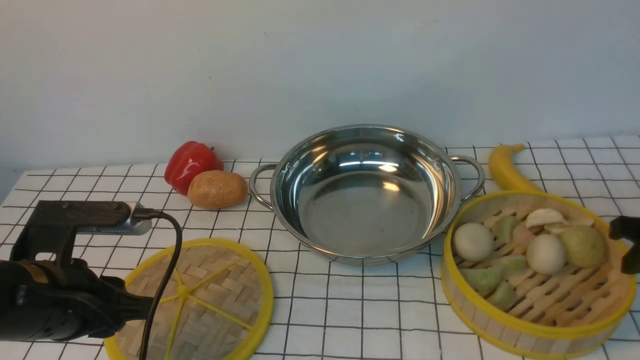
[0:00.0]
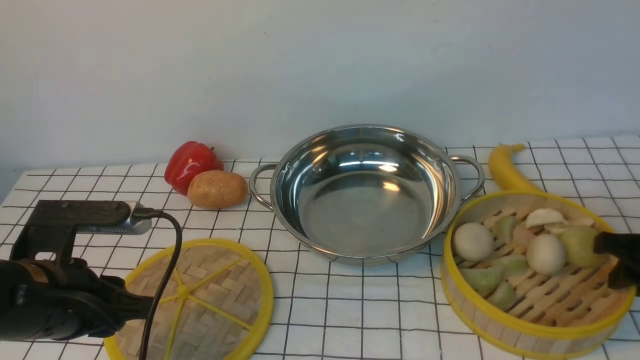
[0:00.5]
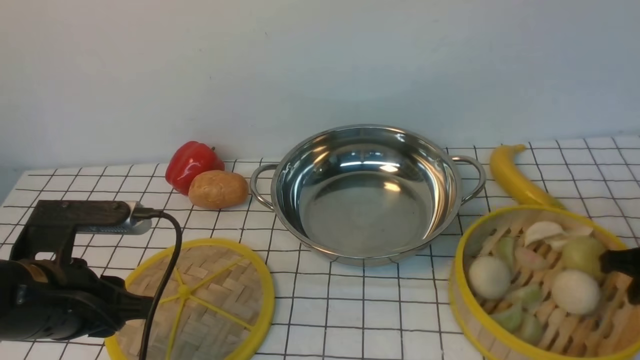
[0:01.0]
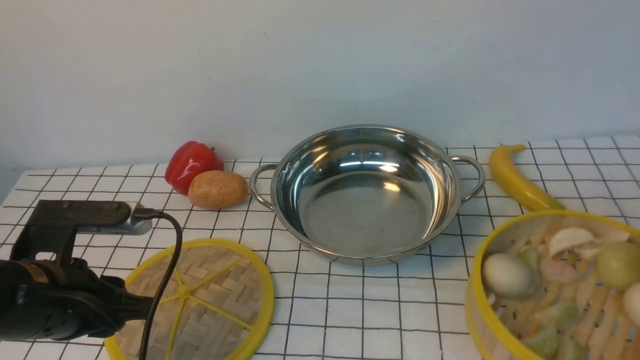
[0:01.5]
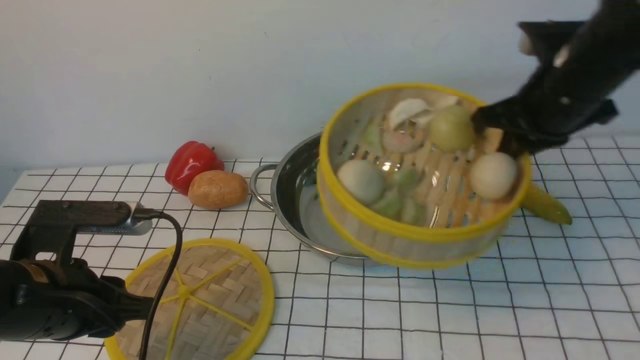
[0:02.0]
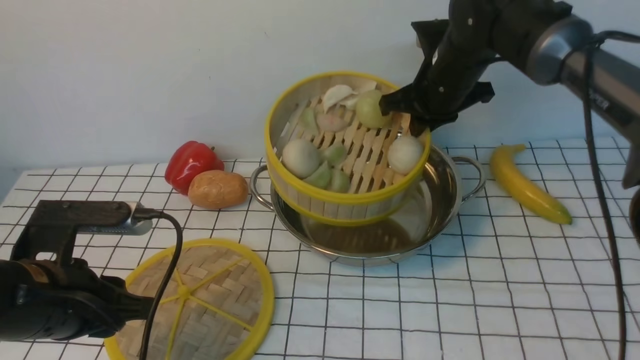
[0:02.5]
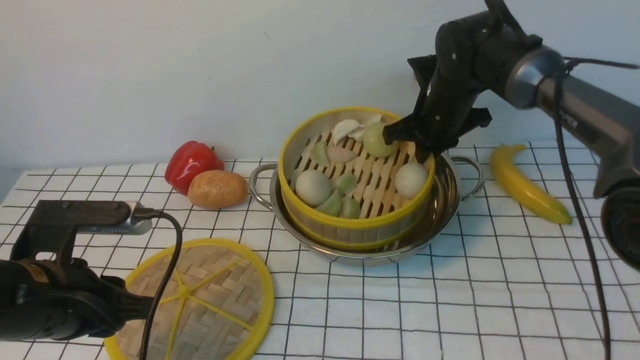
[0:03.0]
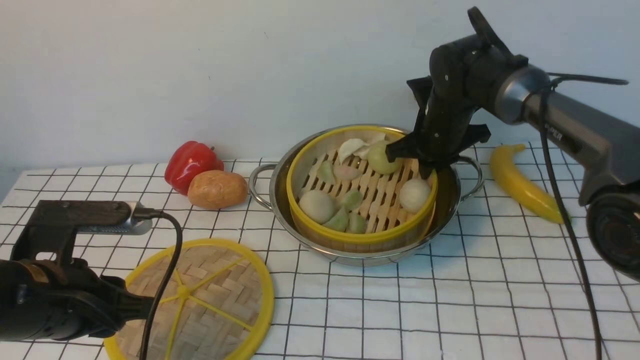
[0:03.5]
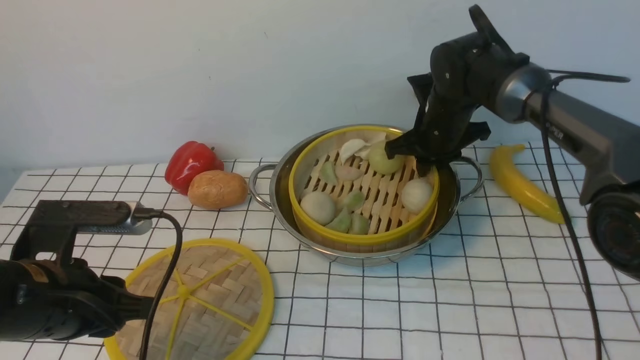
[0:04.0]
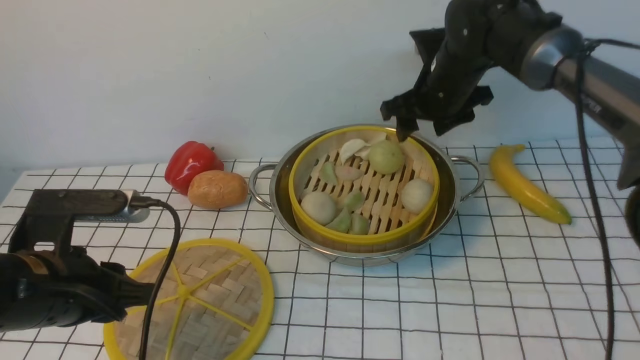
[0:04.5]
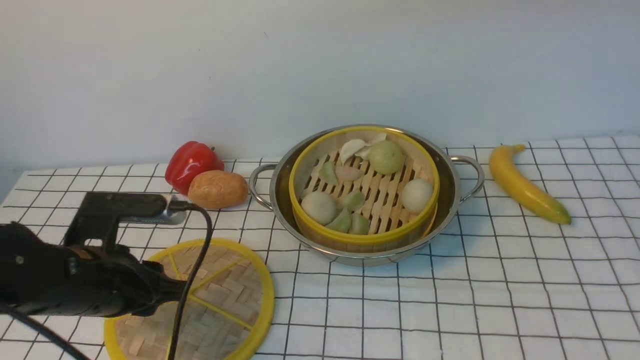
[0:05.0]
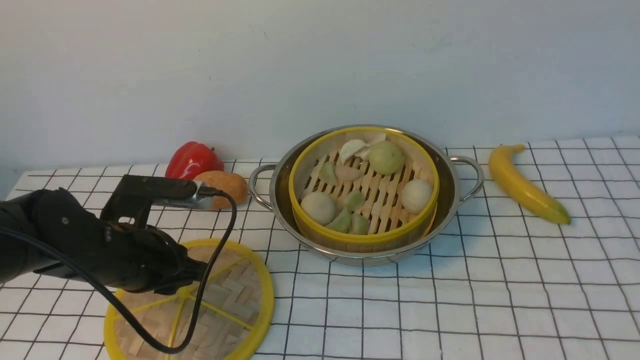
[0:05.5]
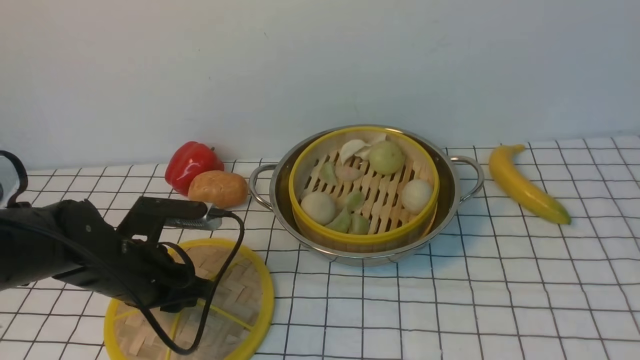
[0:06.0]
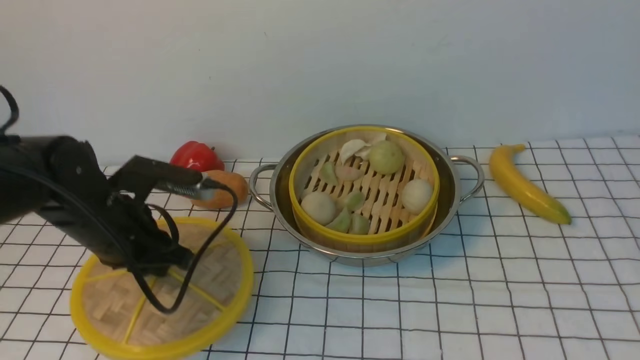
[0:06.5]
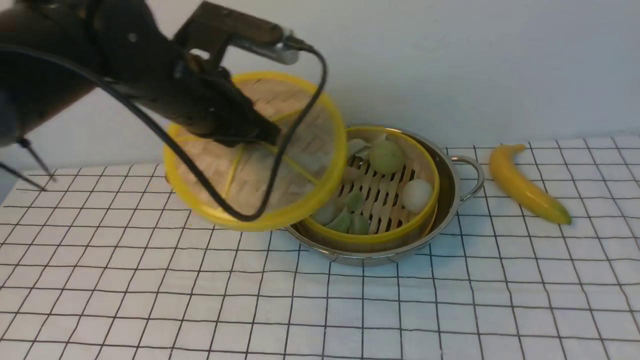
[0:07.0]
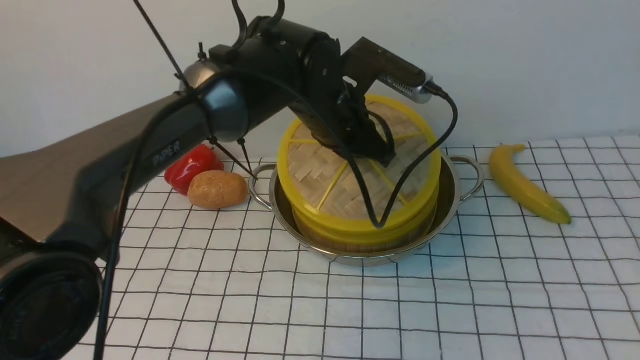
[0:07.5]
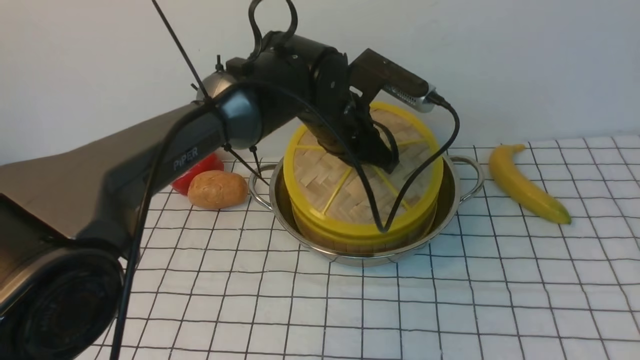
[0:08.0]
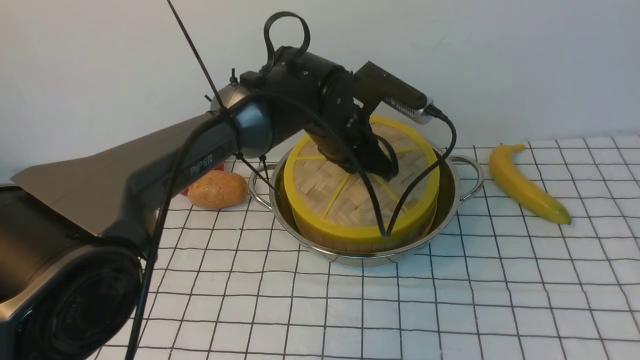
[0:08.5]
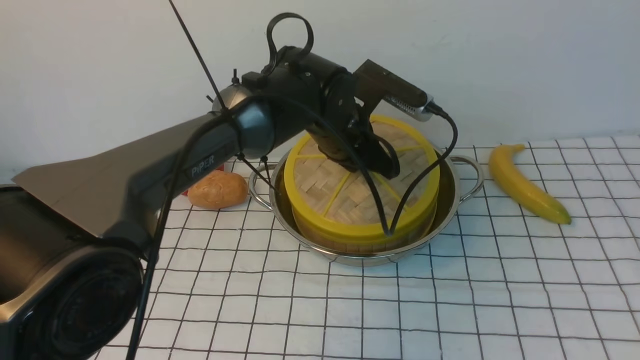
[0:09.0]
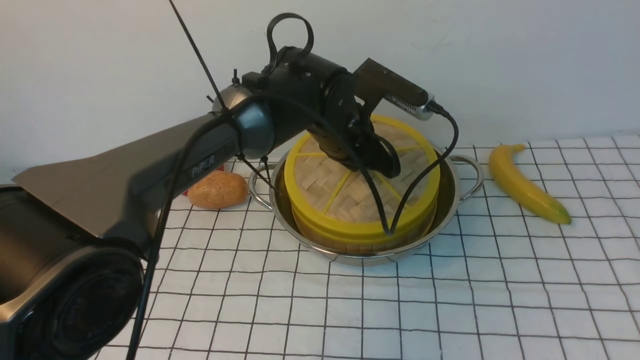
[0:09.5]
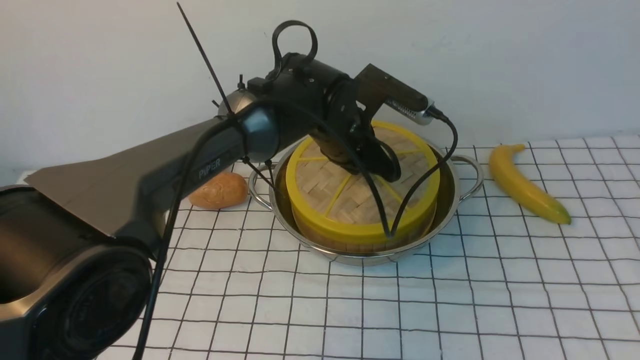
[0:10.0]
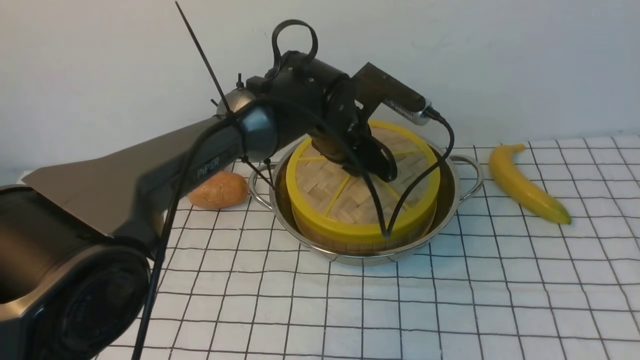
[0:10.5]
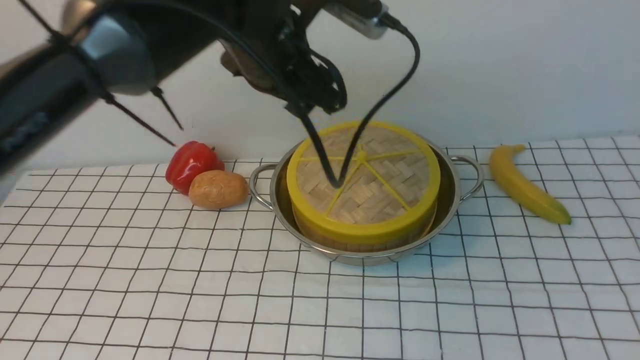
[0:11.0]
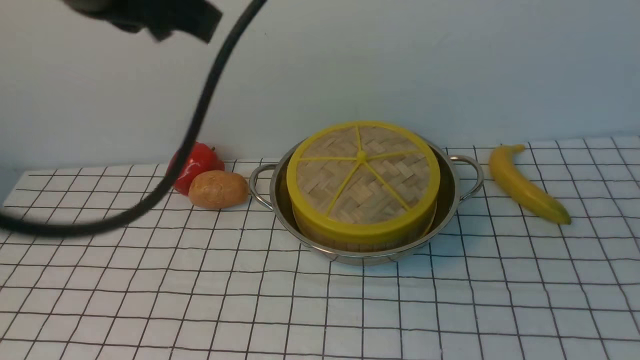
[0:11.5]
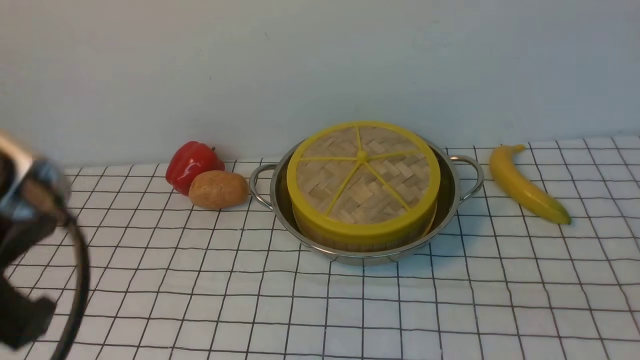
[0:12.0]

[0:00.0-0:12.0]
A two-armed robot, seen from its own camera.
Task of the whole recording: place the steamer in the pot on the white tablecloth, and put the lid on the steamer.
Step, 0:02.0 to 0:04.0: use the right arm to put the steamer into the iron steamer pot in the middle.
Step, 0:04.5 to 0:06.0: use the left arm to lift the lid of the steamer.
Step, 0:06.5 to 0:10.5: use the left arm to place the steamer lid on the steamer.
0:00.0 to 0:02.0: The right gripper shifts about 20 cm to the left, forward and upward, and closes its fingers.
0:02.0 to 0:04.0: The right gripper moves downward, forward and to the left, approximately 20 cm.
0:04.0 to 0:06.0: The left gripper heads forward and downward, covering some 10 cm. The right gripper shifts roughly 60 cm backward and upward, and opens its fingers.
0:06.0 to 0:08.0: The left gripper is displaced to the right and forward by about 25 cm.
0:08.0 to 0:10.0: The grippers make only small movements.
0:10.0 to 0:12.0: The right gripper moves downward, roughly 25 cm, and closes up; the left gripper shifts roughly 40 cm backward, to the left and upward, and opens, then closes again.
